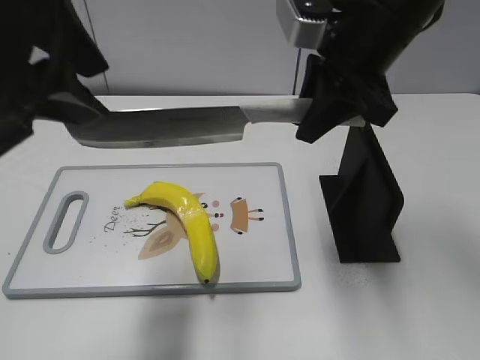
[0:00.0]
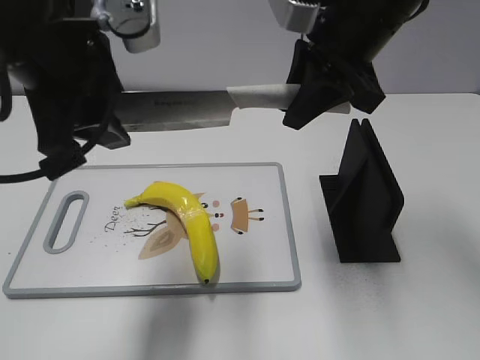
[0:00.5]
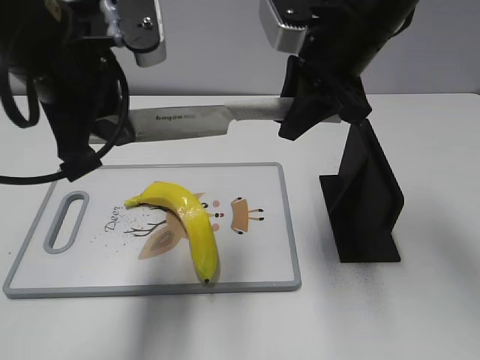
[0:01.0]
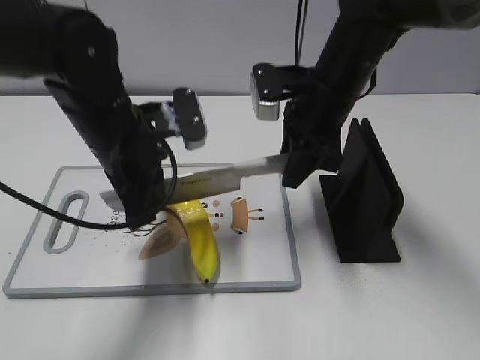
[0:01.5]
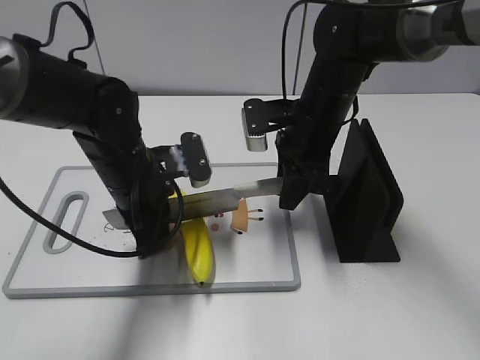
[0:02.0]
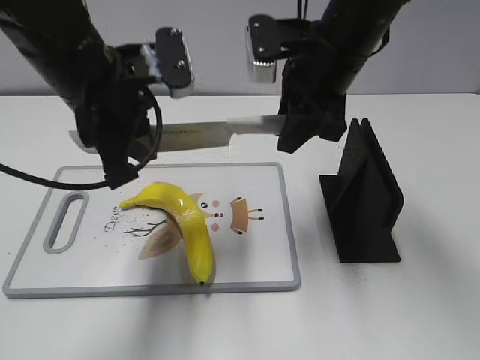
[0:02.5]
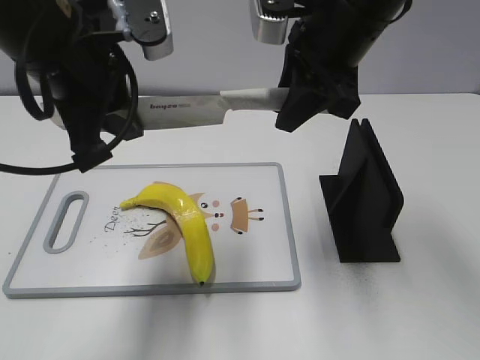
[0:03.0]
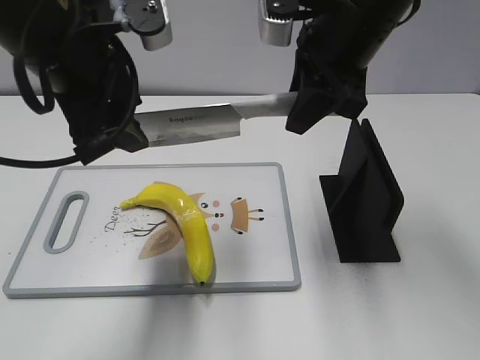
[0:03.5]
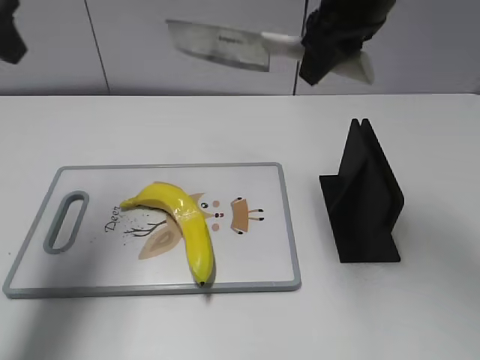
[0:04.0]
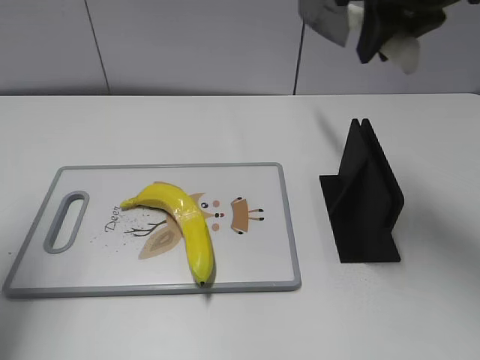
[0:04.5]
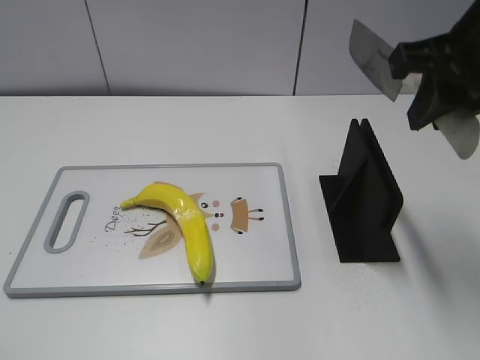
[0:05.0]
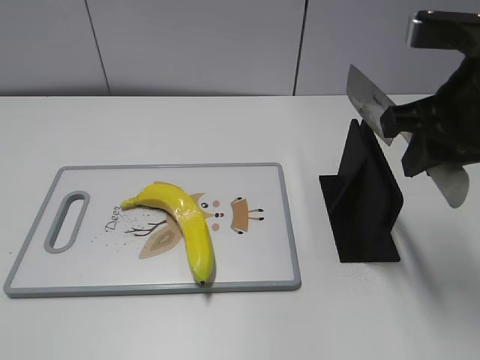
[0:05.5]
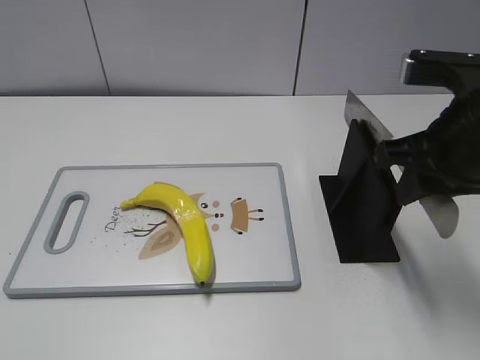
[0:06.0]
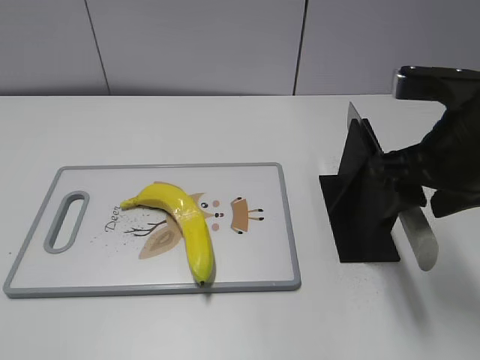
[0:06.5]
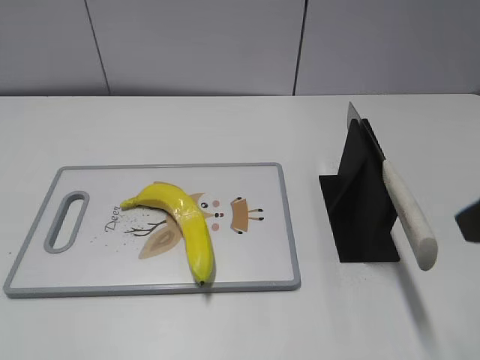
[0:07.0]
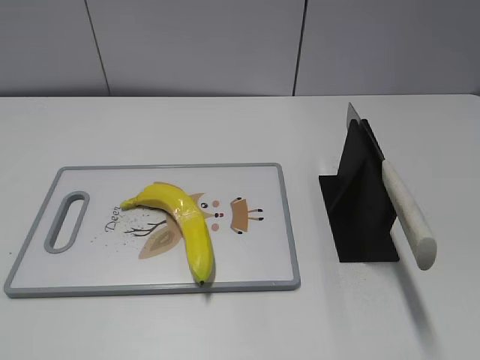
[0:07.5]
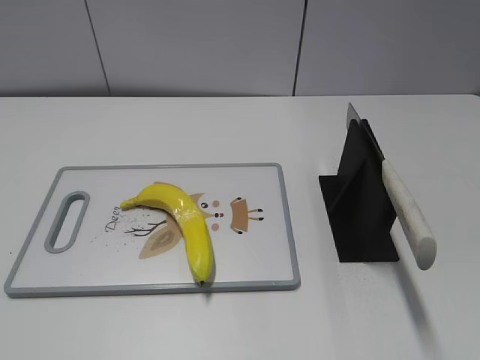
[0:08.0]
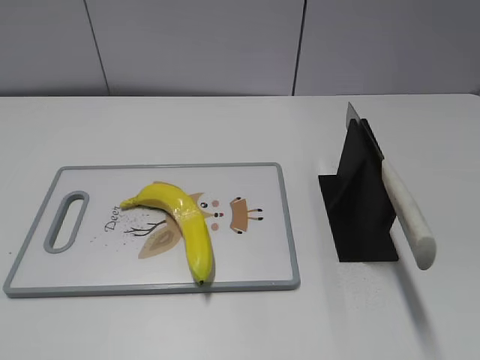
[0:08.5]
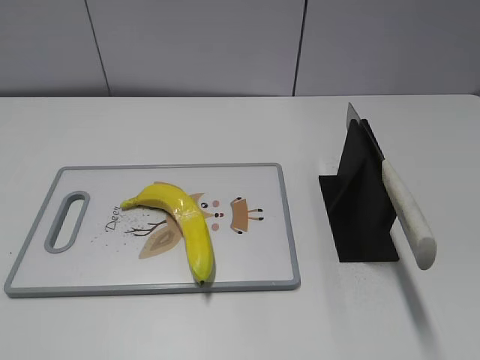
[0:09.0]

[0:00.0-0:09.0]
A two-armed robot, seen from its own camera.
Task of the whole recording: cut plastic banana.
Step, 0:00.0 to 0:02.0: Lift the knife with your right hand.
Step, 0:02.5 to 0:03.5: Cut the banana with your right hand.
Step, 0:04.0 to 0:04.5: Lift the knife with your right hand.
Step, 0:05.0 to 0:09.0: Place the knife on the storage rack with your right hand.
0:00.0 to 0:02.0: The right gripper goes approximately 15 cm downward, while the left gripper shifts roughly 25 cm downward and forward, and closes up.
0:02.0 to 0:04.5: The right gripper is displaced upward by approximately 20 cm; the left gripper moves upward and to the left, about 30 cm, and opens.
0:04.5 to 0:07.0: The right gripper heads backward and to the right, covering some 20 cm, and opens up. Meanwhile the left gripper shifts some 25 cm backward.
0:07.0 to 0:09.0: The right gripper goes about 15 cm backward.
